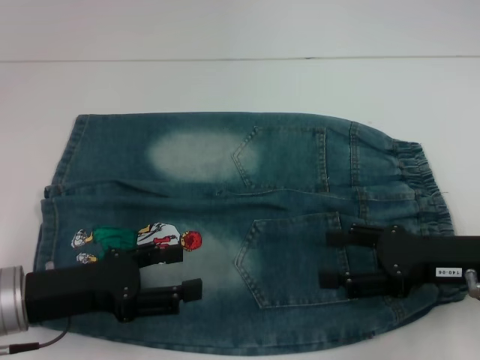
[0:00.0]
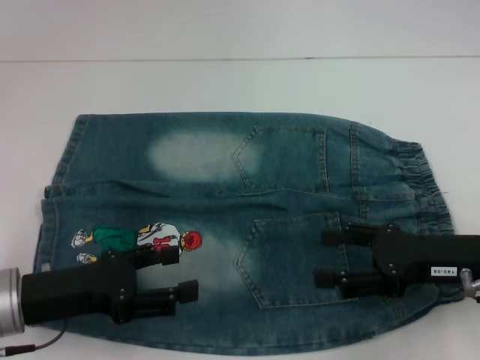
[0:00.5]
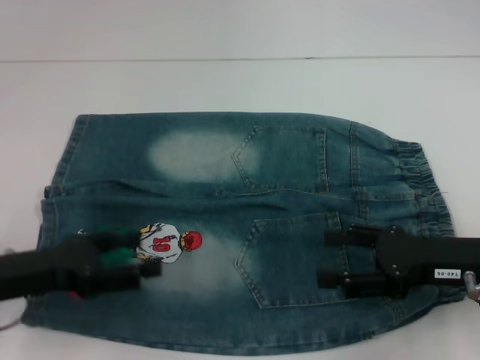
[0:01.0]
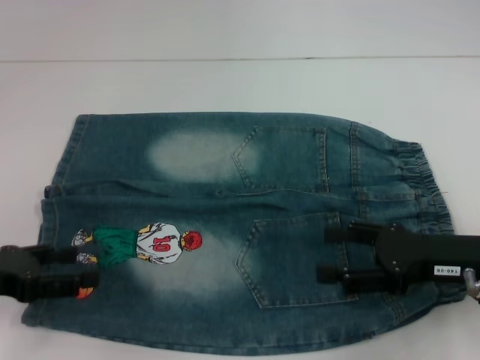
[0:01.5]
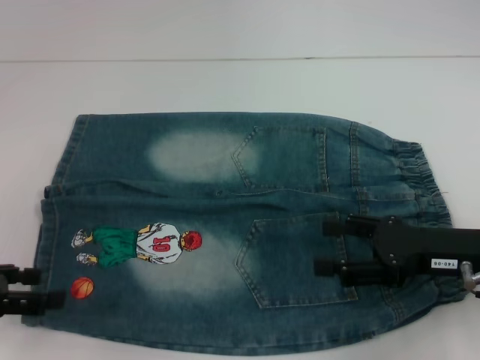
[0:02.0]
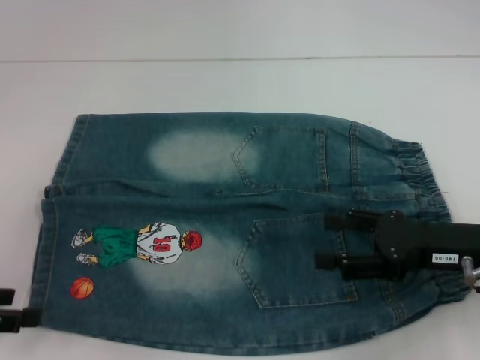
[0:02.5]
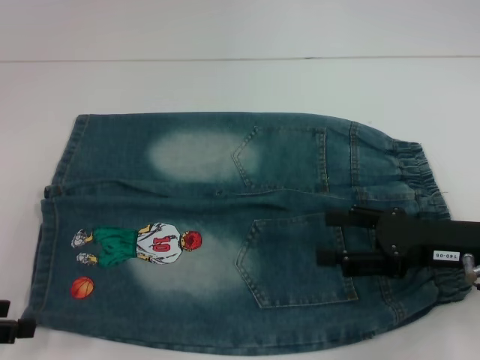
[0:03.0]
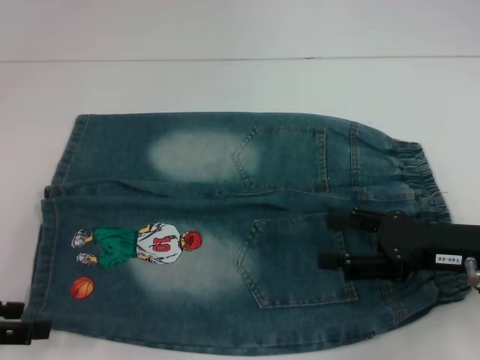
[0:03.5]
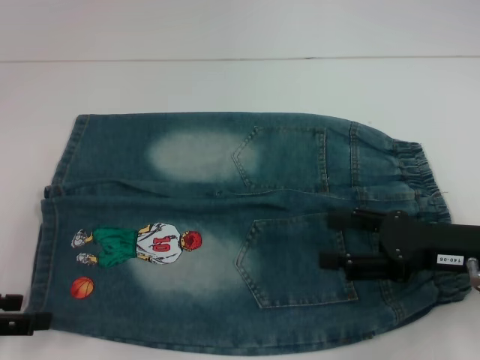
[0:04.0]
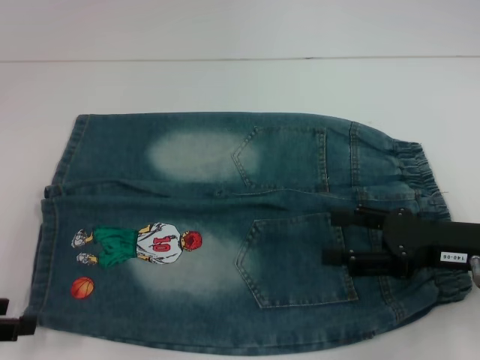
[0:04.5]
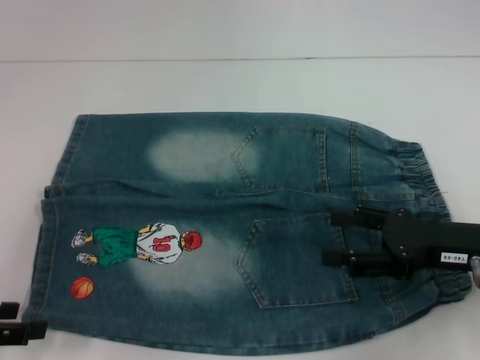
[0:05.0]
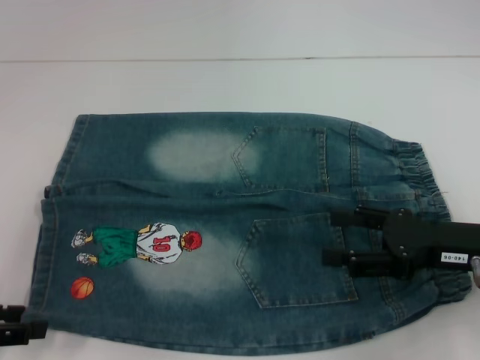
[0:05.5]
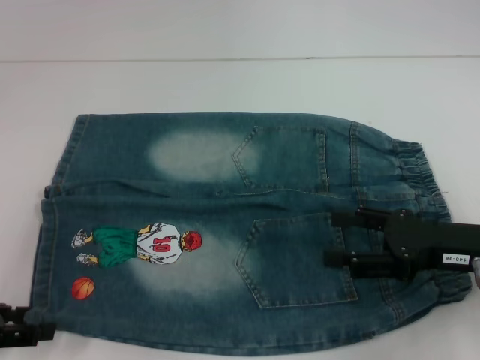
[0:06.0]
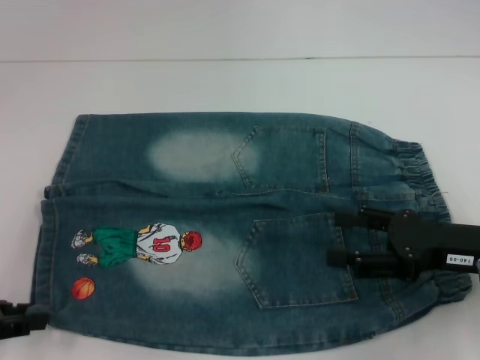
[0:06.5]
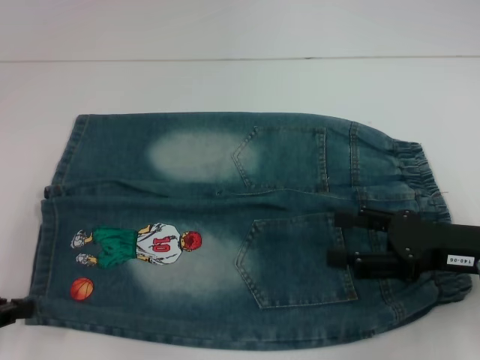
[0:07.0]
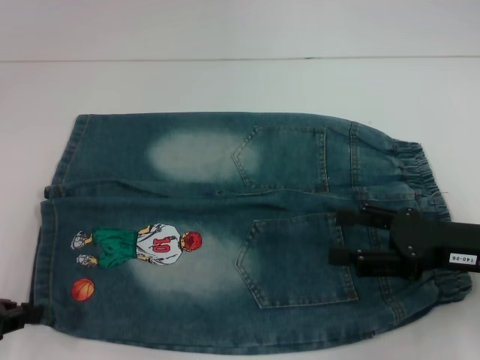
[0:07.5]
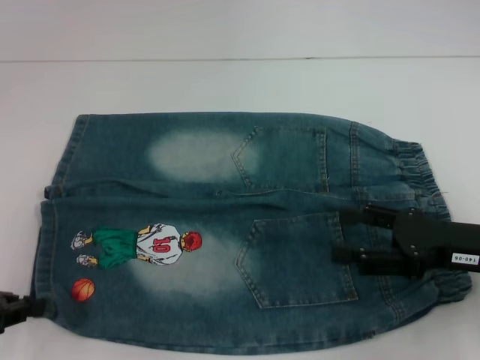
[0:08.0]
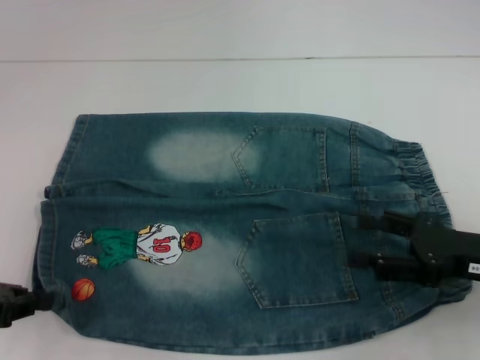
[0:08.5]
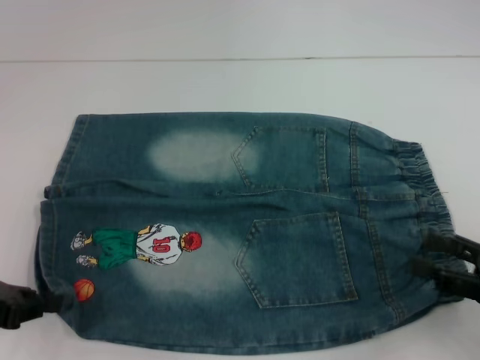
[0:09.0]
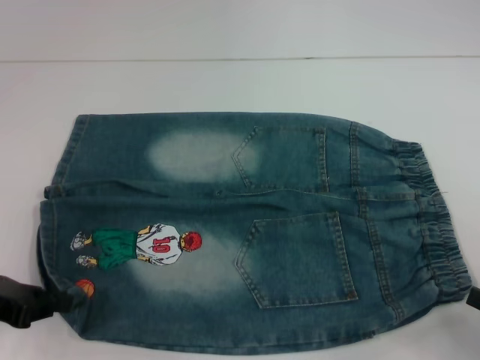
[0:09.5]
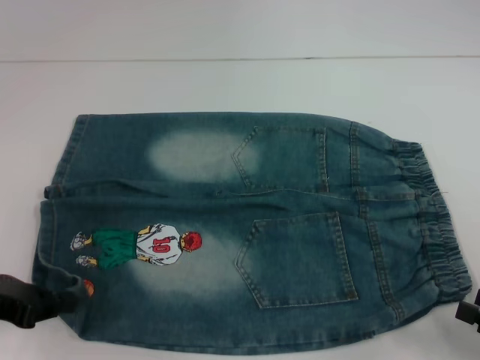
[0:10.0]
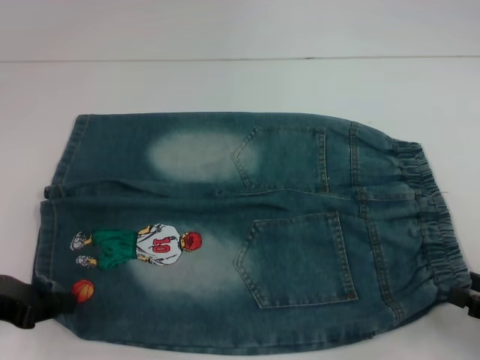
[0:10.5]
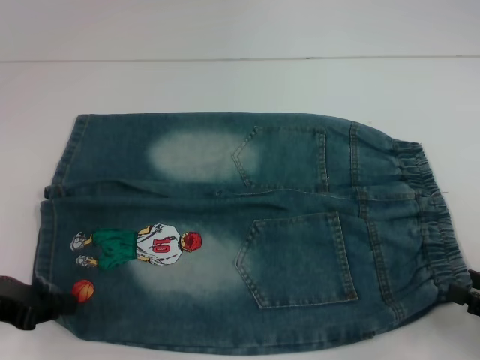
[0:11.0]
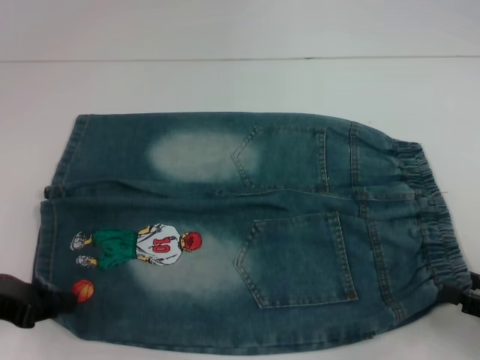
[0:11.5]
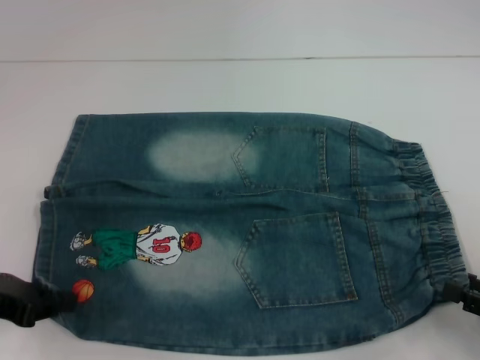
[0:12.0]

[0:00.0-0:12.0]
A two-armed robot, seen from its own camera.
Step, 0:00.0 to 0:06.0: Grab the lower left pant leg with your left hand.
0:00.0 to 0:02.0: The left gripper goes approximately 10 cm to the left.
0:02.0 to 0:06.0: There are only small adjustments of the grippers.
0:06.0 to 0:08.0: The left gripper closes its fingers.
0:08.0 to 0:10.0: The right gripper is displaced backward and to the right by roughly 15 cm.
0:10.0 to 0:12.0: The grippers move only a little.

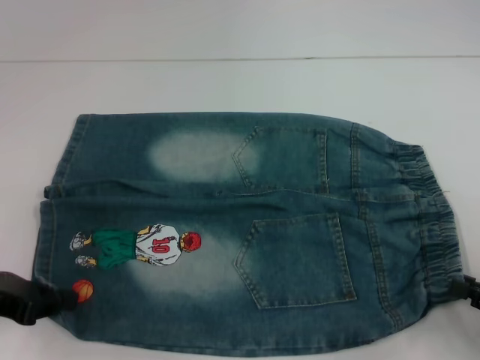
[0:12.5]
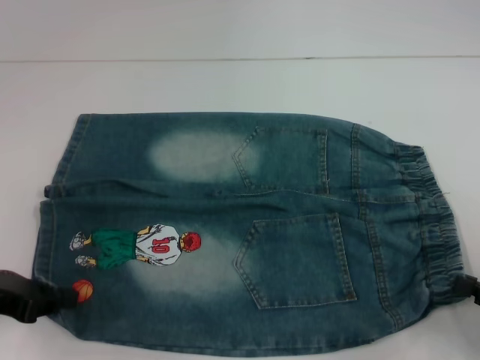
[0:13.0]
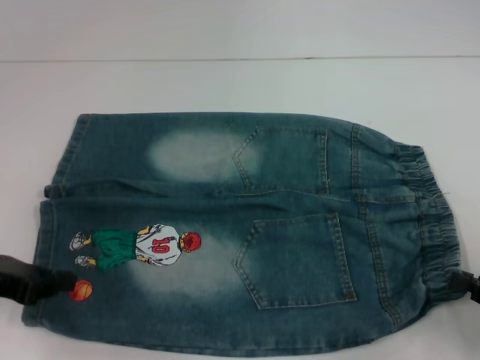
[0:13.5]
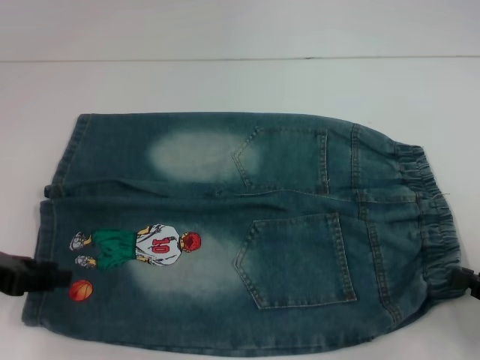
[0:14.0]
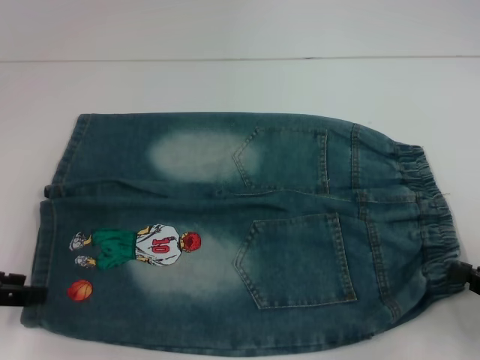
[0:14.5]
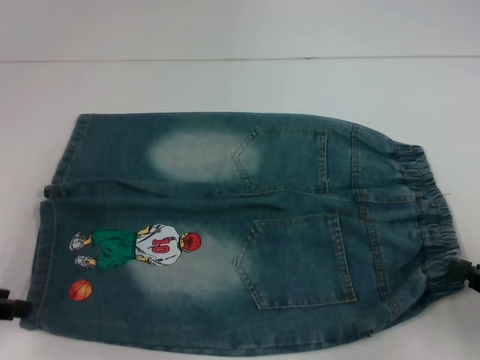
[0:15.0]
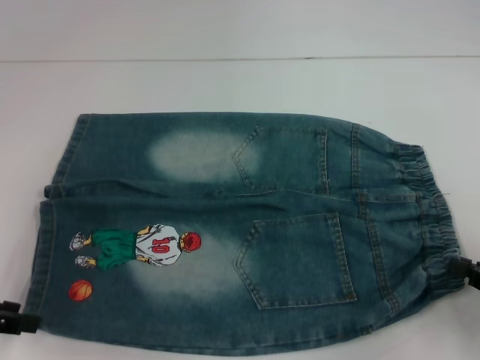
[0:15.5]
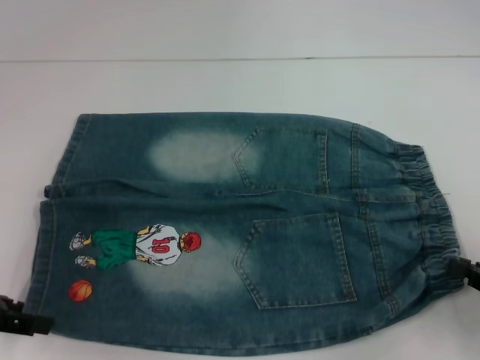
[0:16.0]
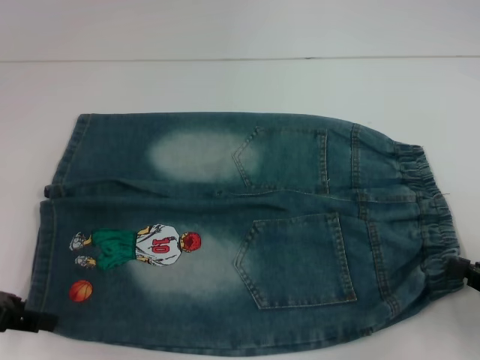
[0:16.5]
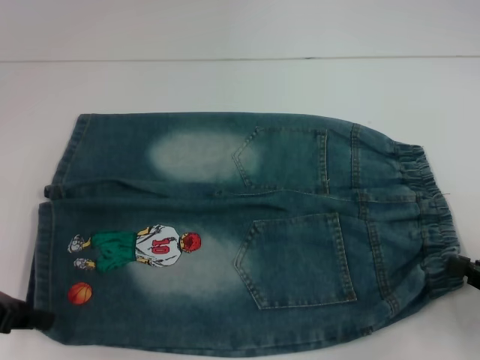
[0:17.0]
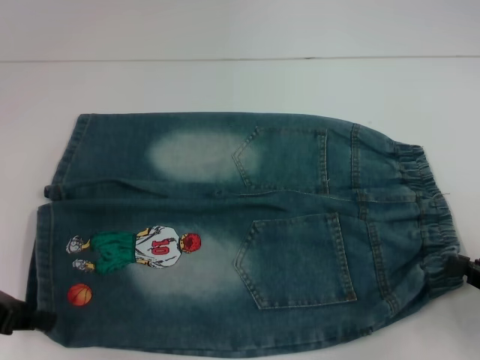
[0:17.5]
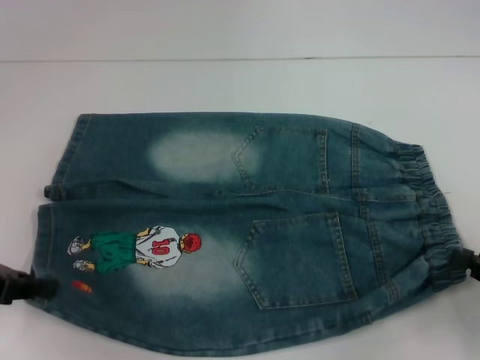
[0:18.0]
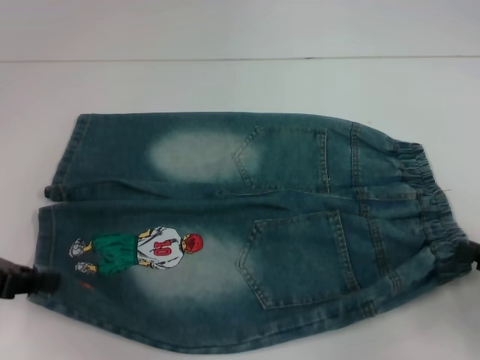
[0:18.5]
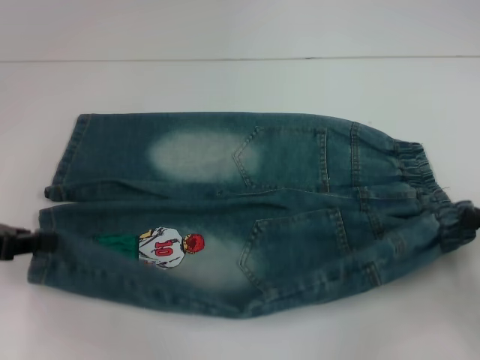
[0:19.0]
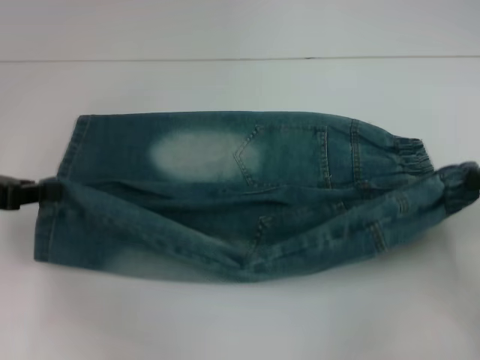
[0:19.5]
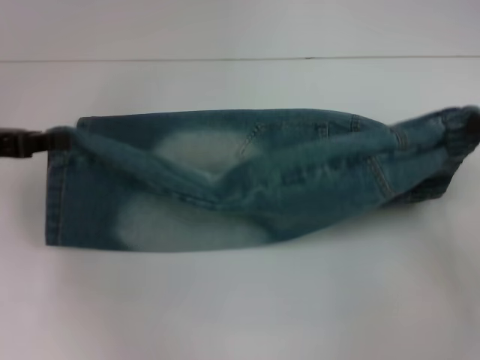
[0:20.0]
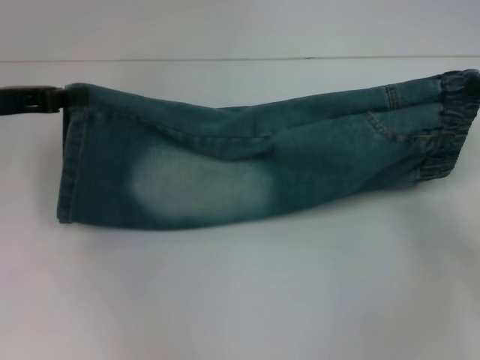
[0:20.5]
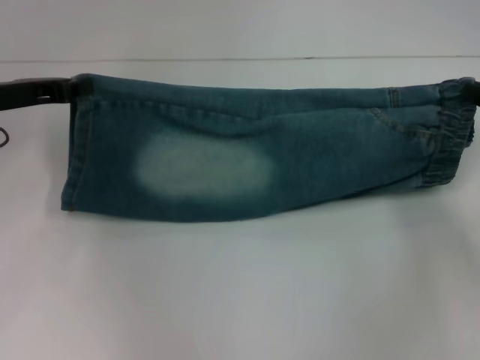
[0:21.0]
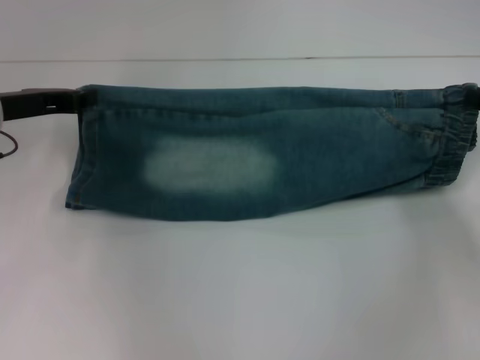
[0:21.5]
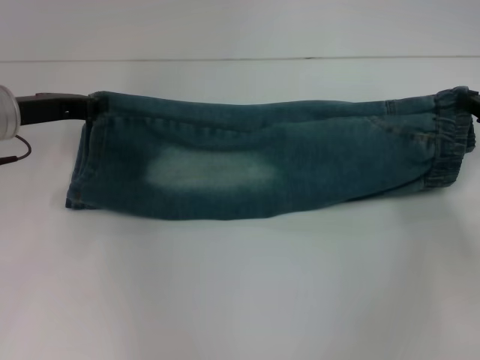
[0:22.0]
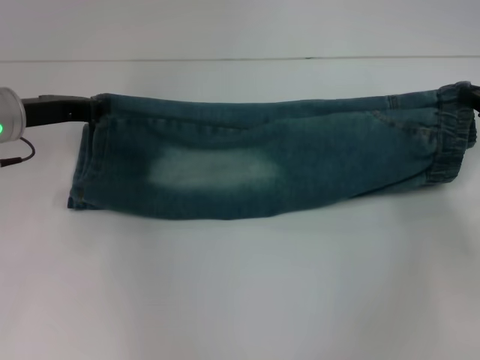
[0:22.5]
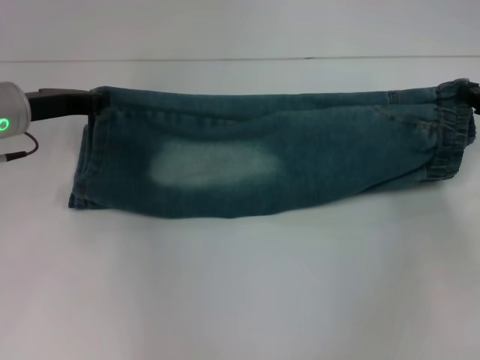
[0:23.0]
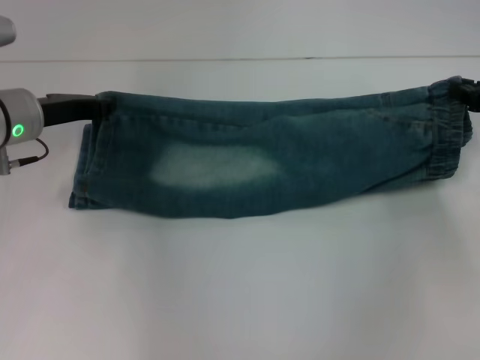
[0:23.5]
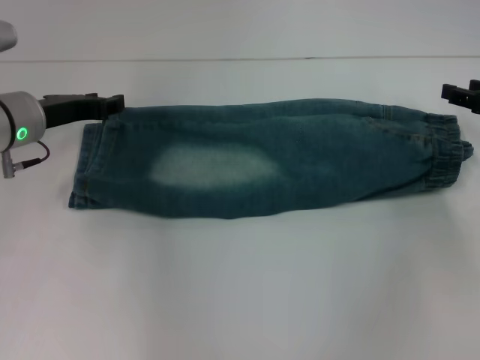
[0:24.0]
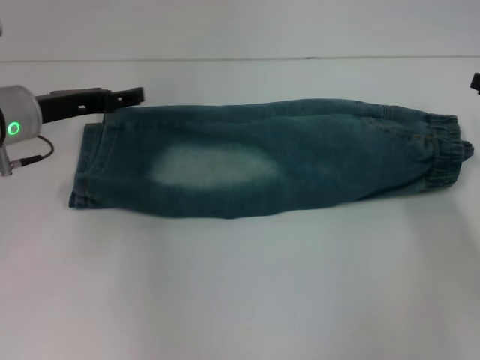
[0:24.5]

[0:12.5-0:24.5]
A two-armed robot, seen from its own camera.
Step, 0:13.0 to 0:23.5: Fold upward with your left hand.
0:12.5 to 0:14.5: The right gripper closes its fingers. Meanwhile the left gripper opens up.
0:14.5 to 0:16.5: The grippers stay close to where they were, moving slightly.
0:16.5 to 0:18.5: The left gripper closes its fingers.
0:18.5 to 0:20.5: The right gripper is displaced forward and upward by approximately 15 cm. The left gripper goes roughly 10 cm forward.
0:20.5 to 0:22.5: The left gripper moves some 5 cm.
0:22.5 to 0:24.5: The right gripper opens up, while the left gripper opens up.

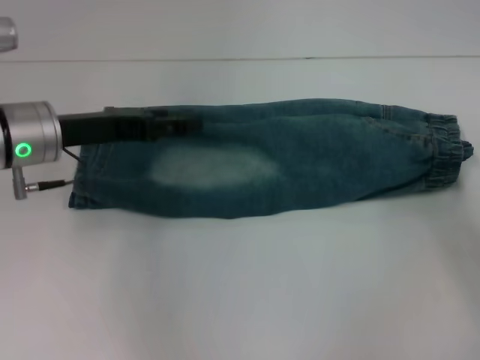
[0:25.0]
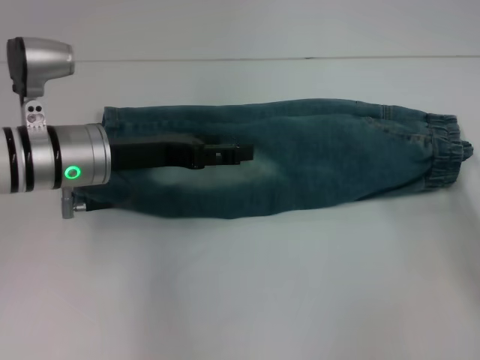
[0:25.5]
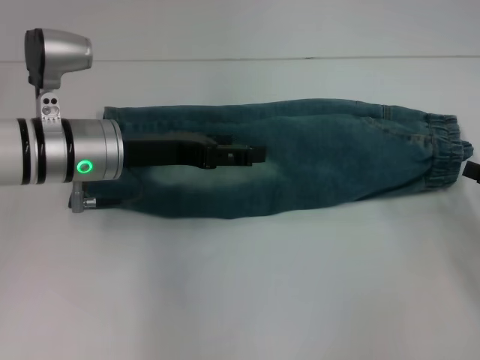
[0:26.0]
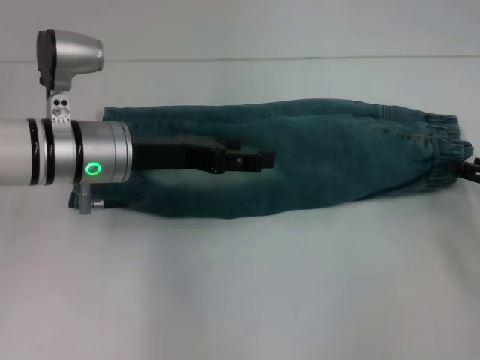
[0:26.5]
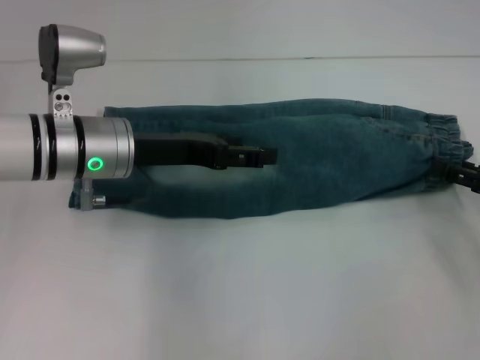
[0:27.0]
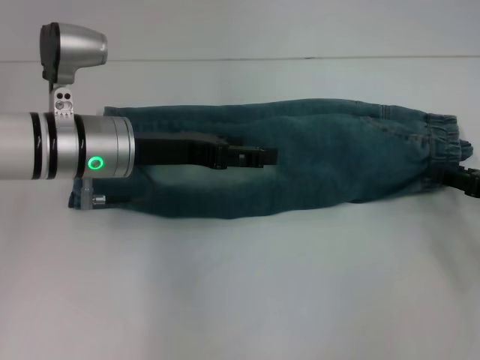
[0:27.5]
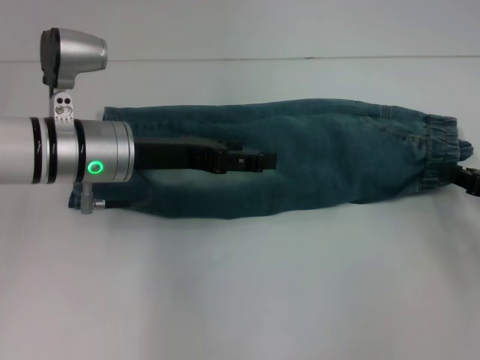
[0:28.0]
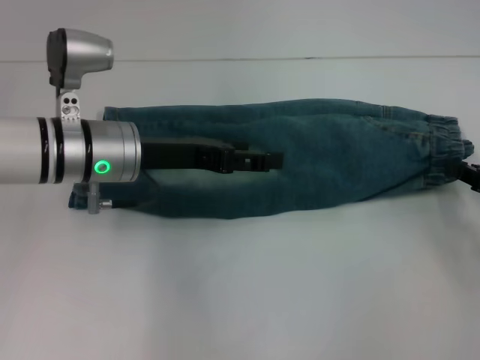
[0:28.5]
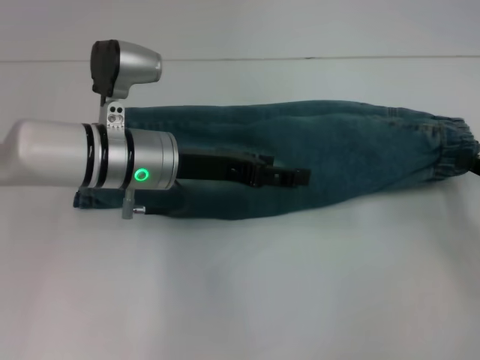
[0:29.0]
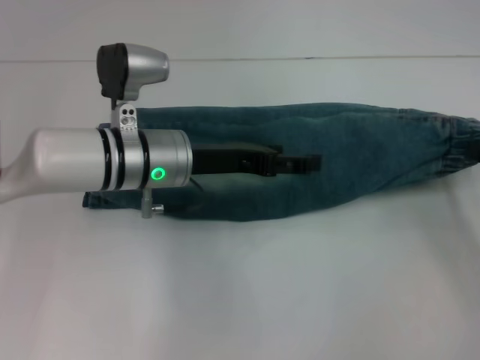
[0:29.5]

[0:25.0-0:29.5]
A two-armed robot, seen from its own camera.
Step, 0:25.0 to 0:28.0: Grab the waistband with your right hand.
0:25.0 to 0:27.0: The left gripper heads to the right, covering about 5 cm.
0:27.0 to 0:29.5: The left gripper heads to the right, covering some 5 cm. Meanwhile the right gripper closes up.
